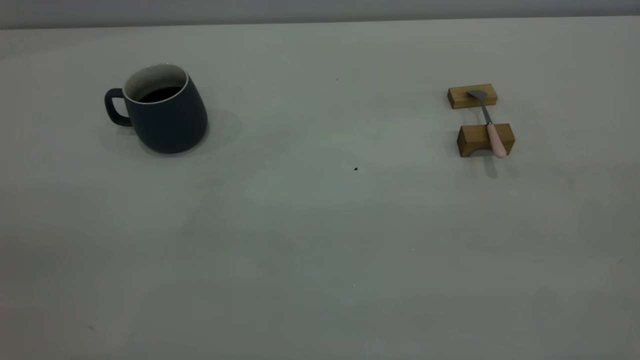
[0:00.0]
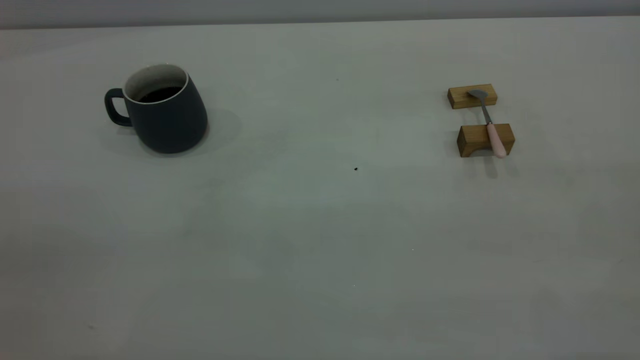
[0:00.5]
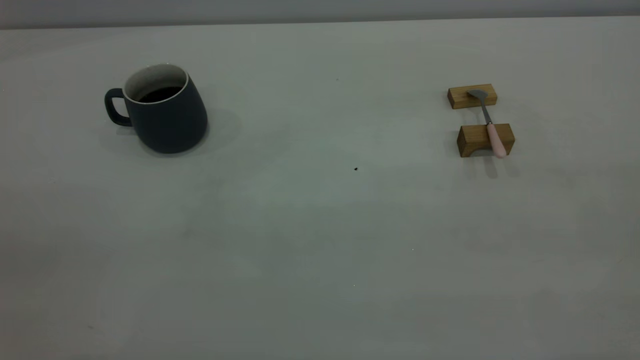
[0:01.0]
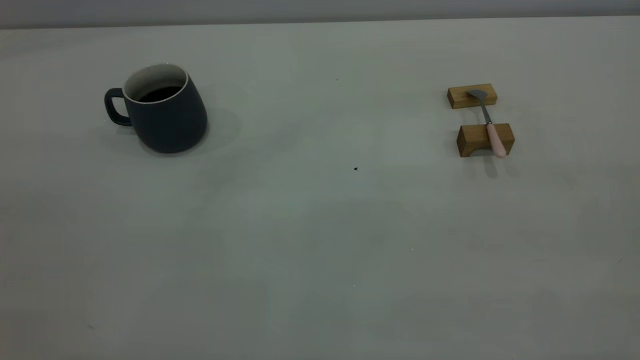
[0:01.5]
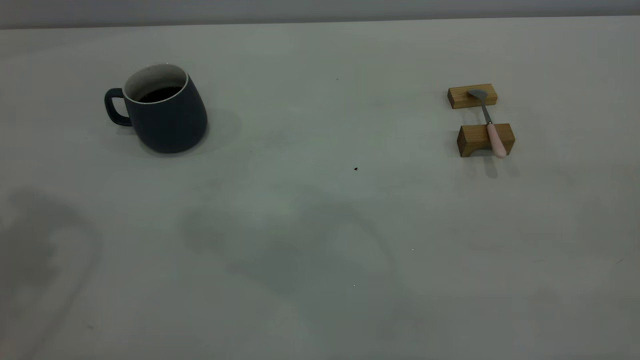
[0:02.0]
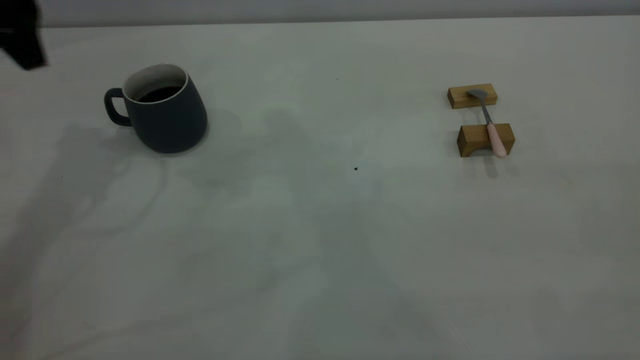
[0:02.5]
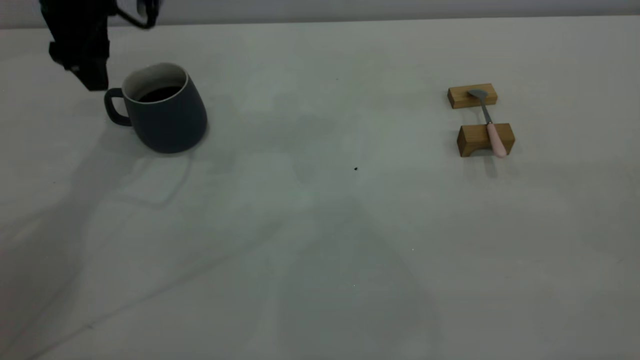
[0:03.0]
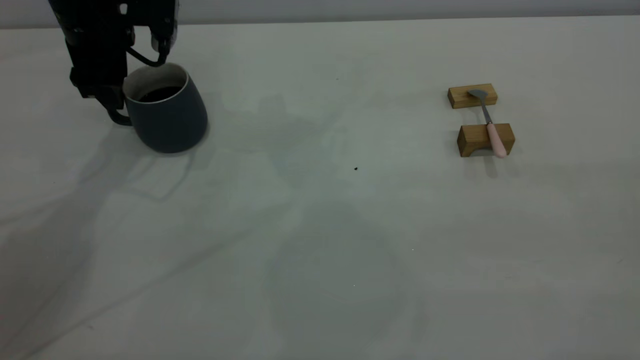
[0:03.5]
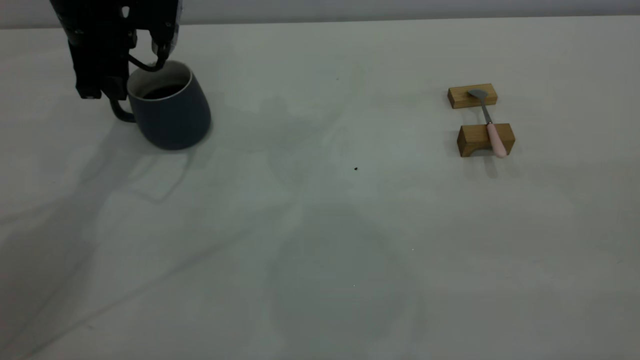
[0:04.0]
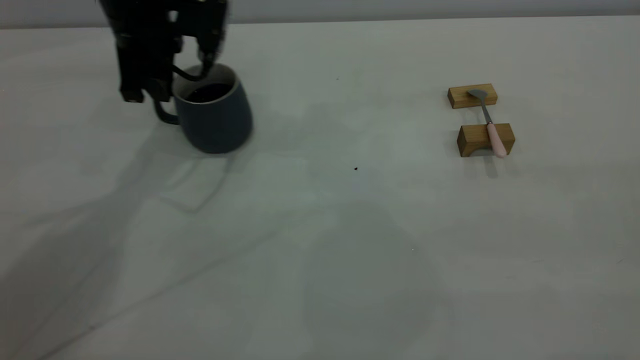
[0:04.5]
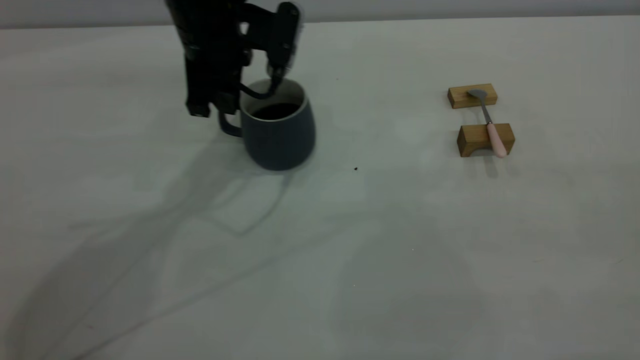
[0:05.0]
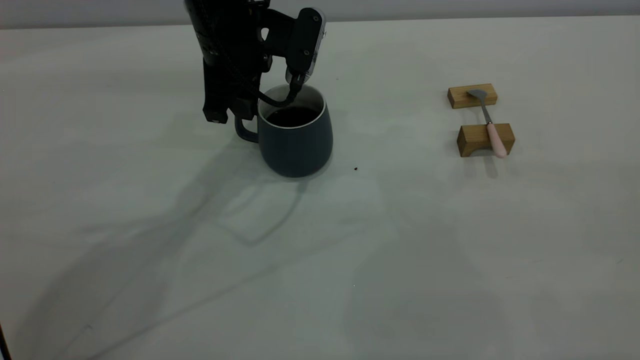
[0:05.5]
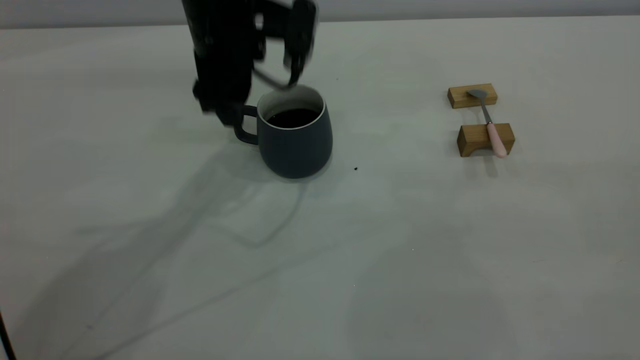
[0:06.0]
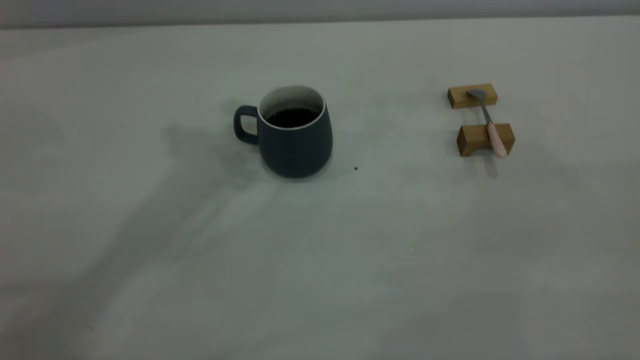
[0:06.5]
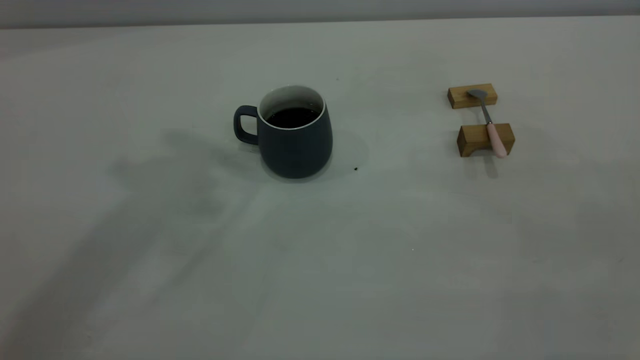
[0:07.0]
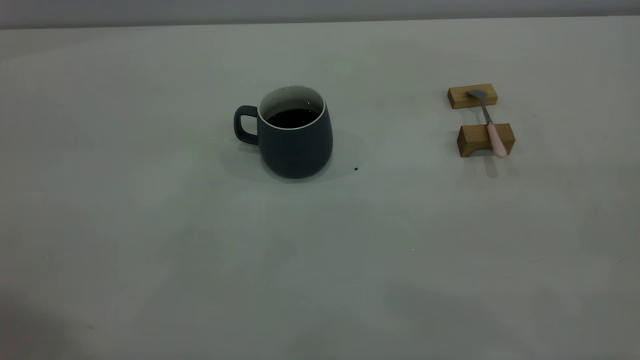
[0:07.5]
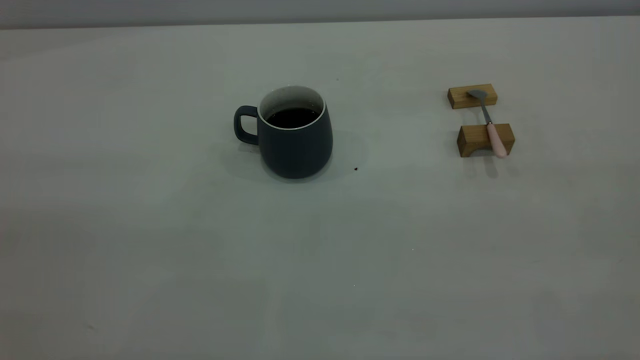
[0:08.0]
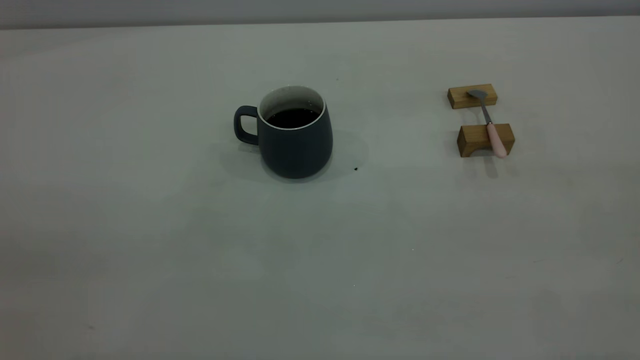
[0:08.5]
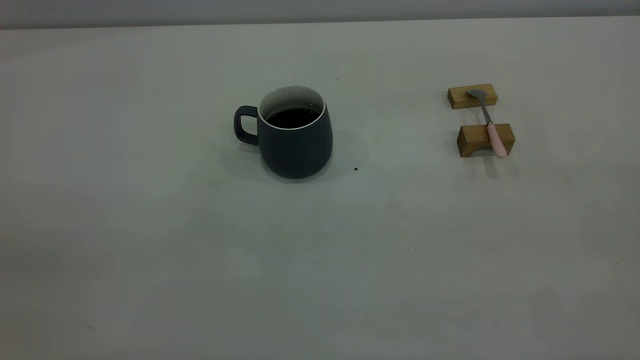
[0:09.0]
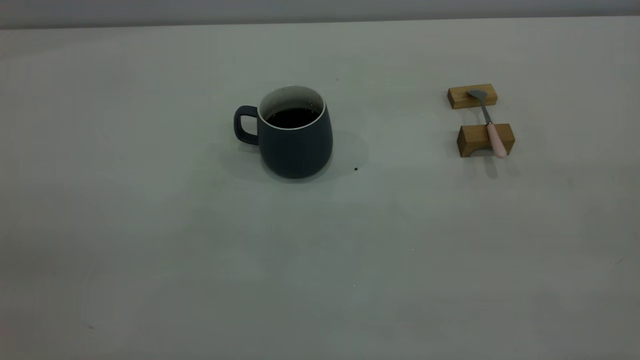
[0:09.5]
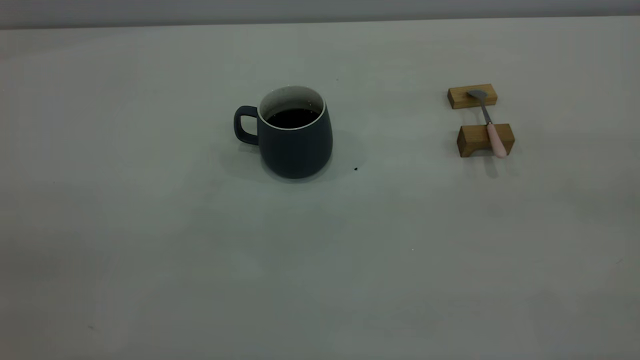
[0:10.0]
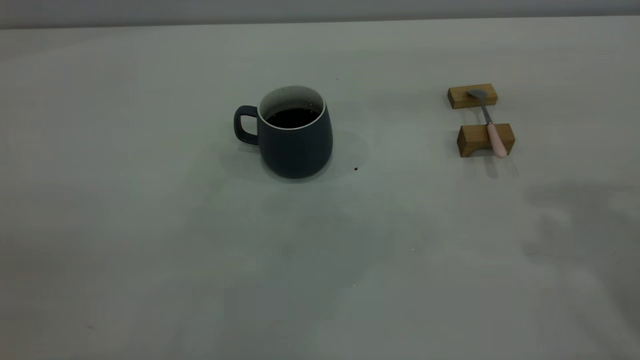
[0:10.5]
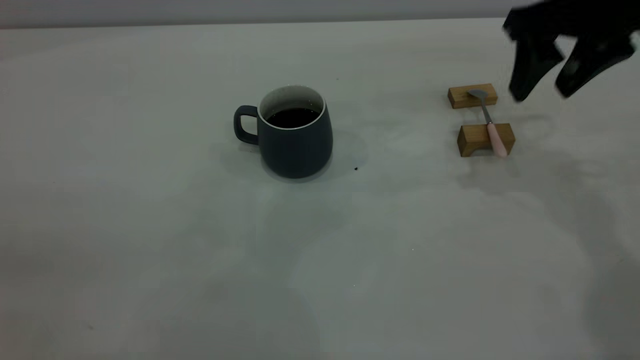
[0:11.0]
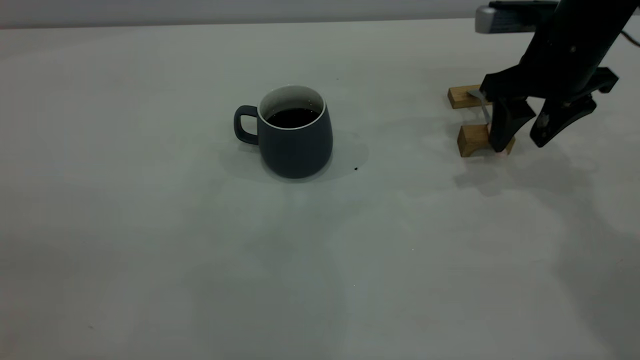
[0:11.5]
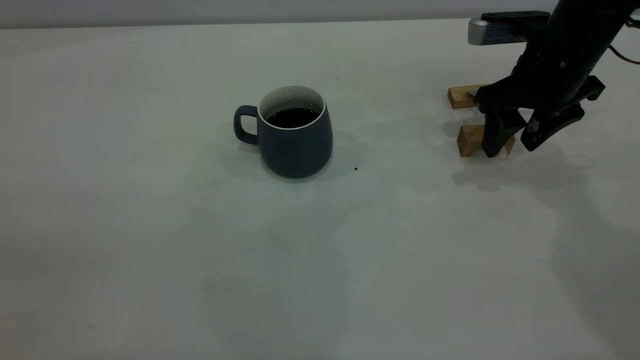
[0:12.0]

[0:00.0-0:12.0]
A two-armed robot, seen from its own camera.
Step, 0:00.0 to 0:06.0: Move the cup with coffee to the center of view.
0:02.0 to 0:04.0: The left gripper heads downward and forward, covering approximately 30 cm, and closes up.
0:04.0 to 0:06.0: The left gripper shifts about 15 cm to the right, and opens up.
0:06.0 to 0:08.0: The left gripper heads backward, to the left and upward, covering some 50 cm.
0:10.0 to 0:12.0: The right gripper goes roughly 40 cm forward and downward, and opens up.

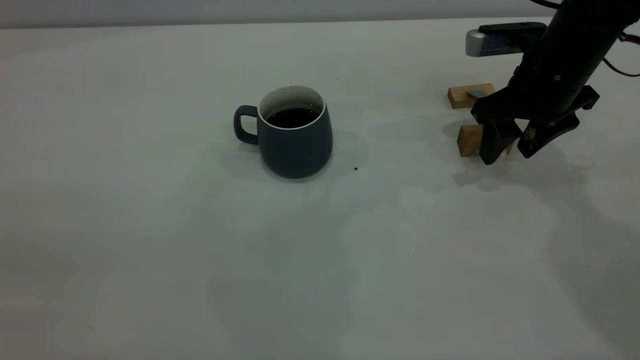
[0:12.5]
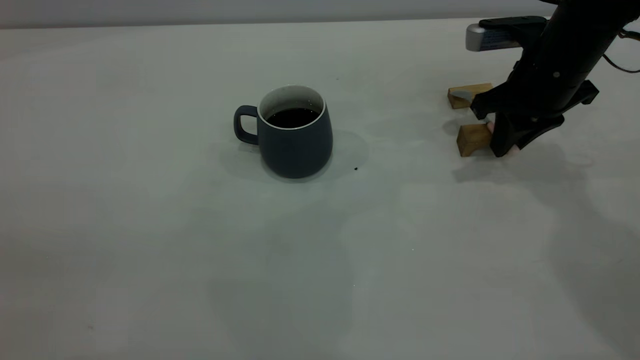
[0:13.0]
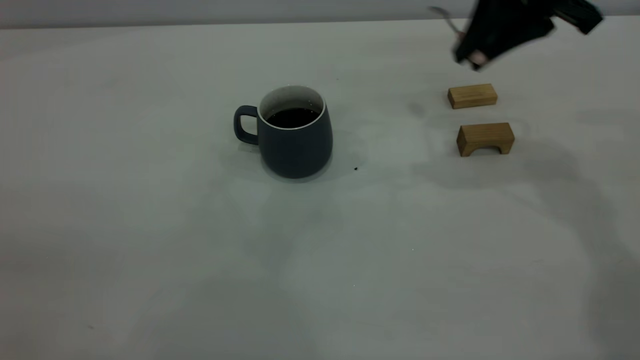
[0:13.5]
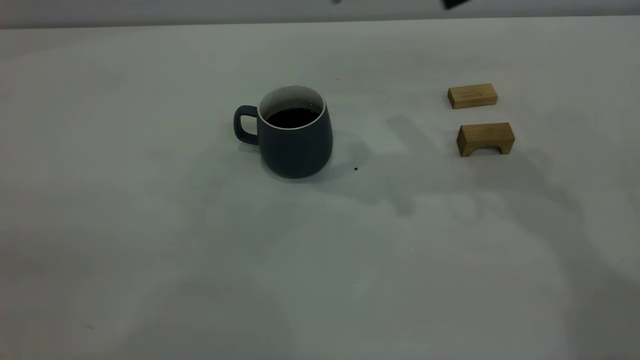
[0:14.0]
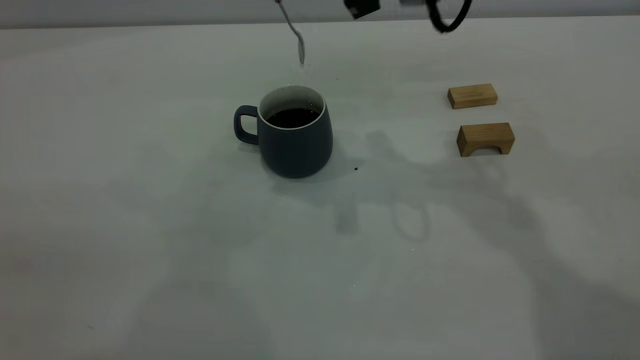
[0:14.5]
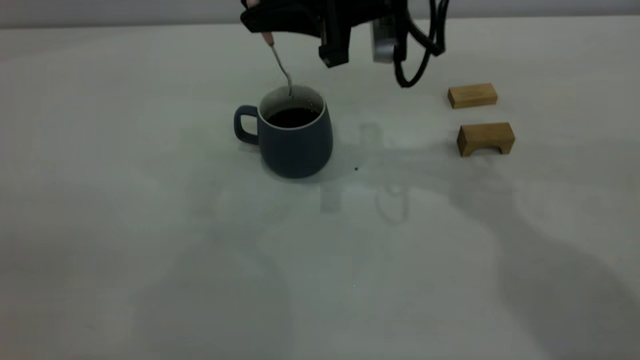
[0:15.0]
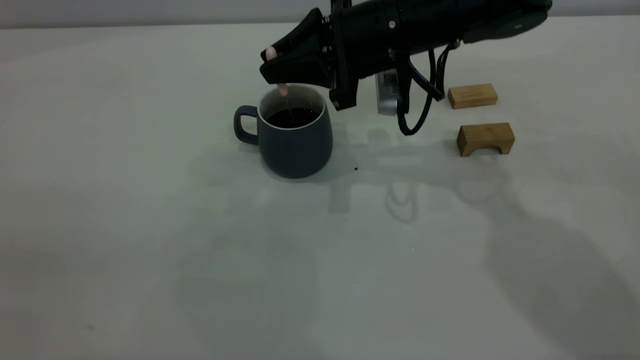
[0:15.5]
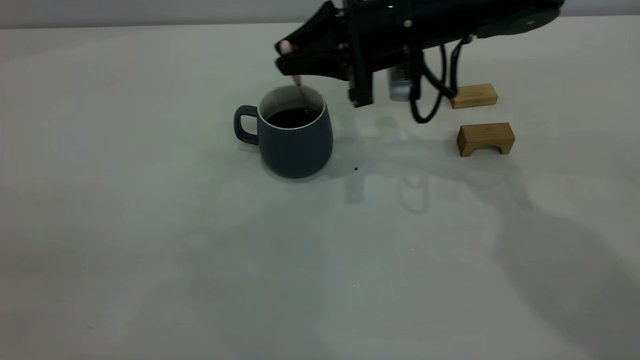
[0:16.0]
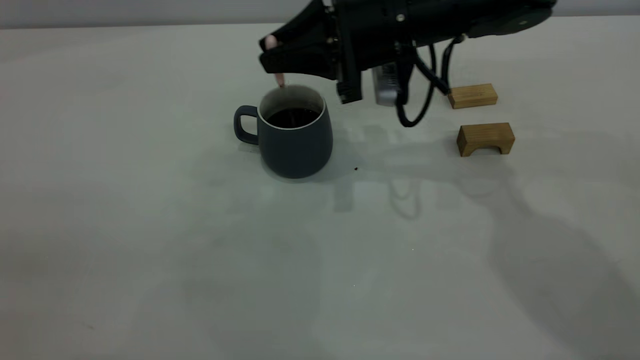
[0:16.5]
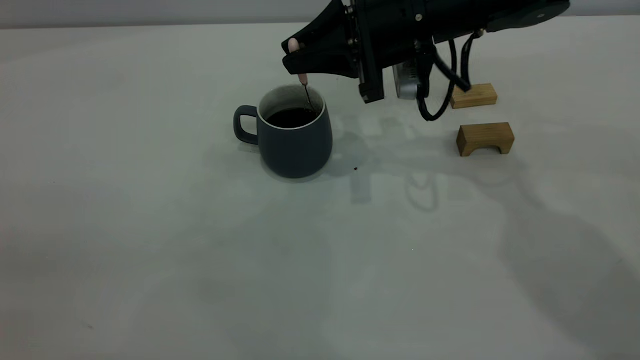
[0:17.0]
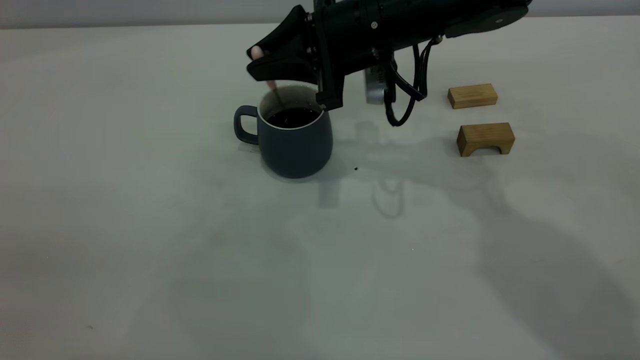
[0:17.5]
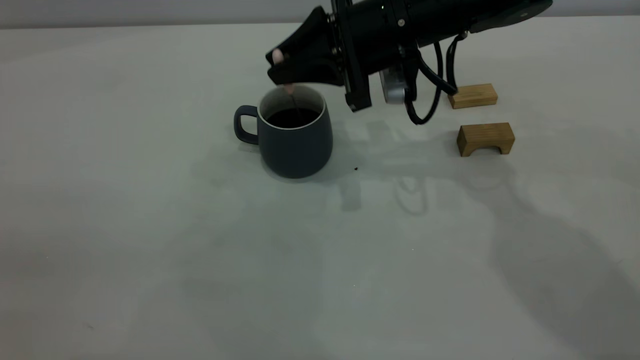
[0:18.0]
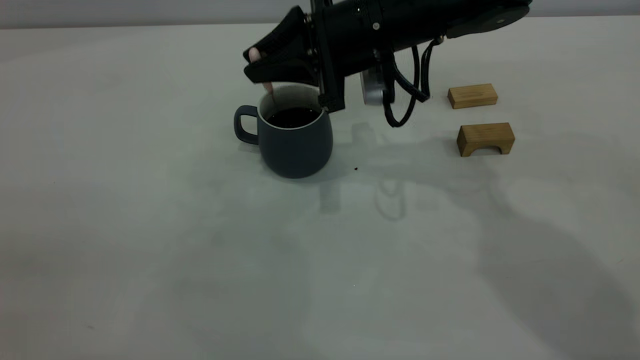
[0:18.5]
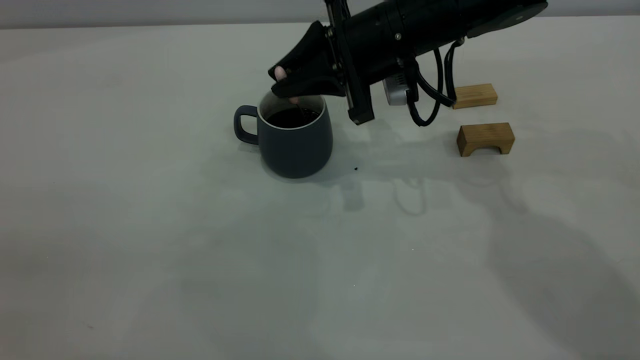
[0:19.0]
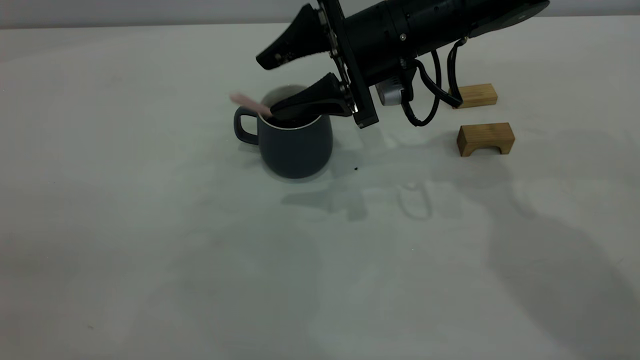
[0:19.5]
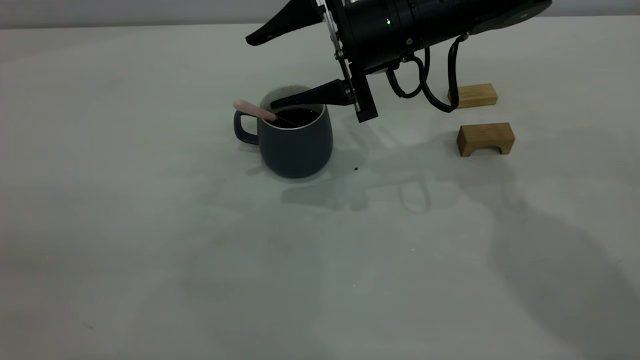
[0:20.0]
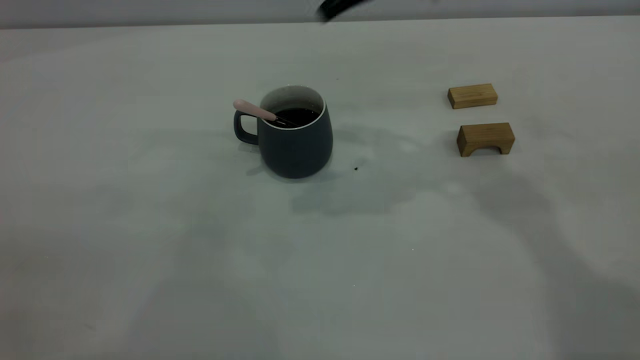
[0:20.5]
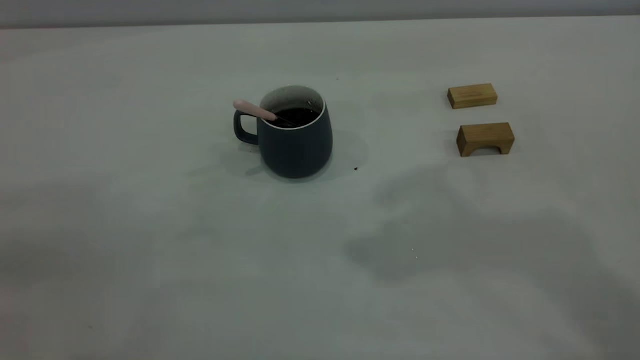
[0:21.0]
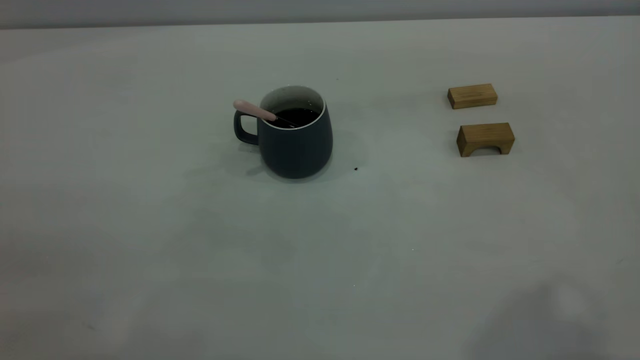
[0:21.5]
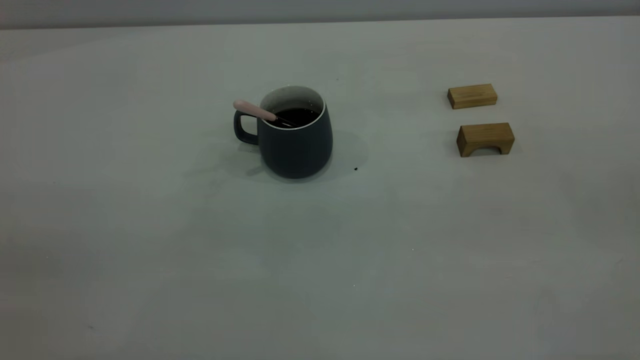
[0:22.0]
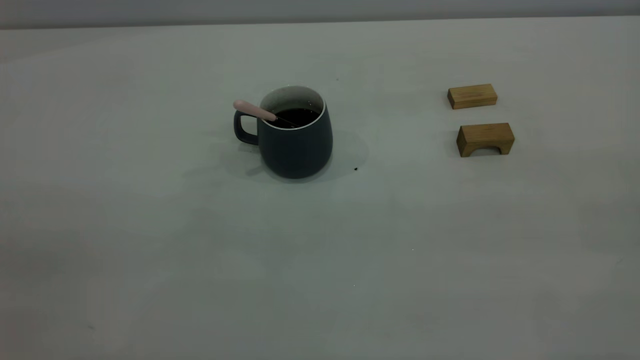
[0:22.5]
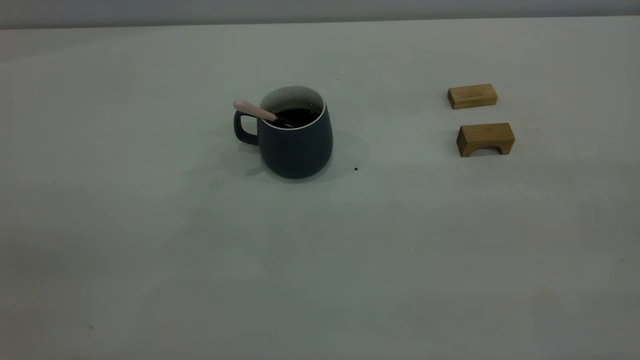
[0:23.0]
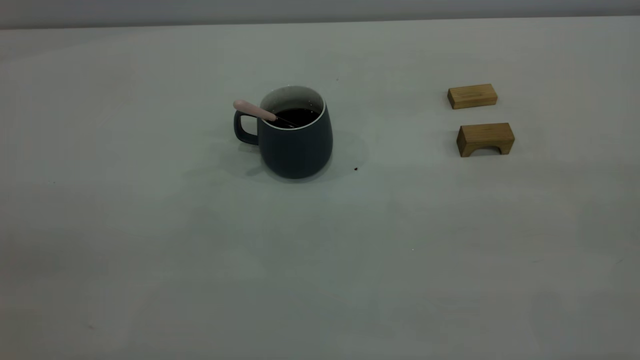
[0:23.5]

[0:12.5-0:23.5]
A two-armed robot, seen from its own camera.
Step, 0:13.5 to 0:20.0: Stir the coffee in the cup.
0:12.5 to 0:14.5: The right gripper moves to the left and upward, roughly 20 cm, and closes up.
0:14.5 to 0:16.0: The right gripper shifts some 10 cm downward.
0:16.0 to 0:18.0: The grippers stay close to where they were, moving slightly.
0:18.0 to 0:20.0: The right gripper opens its fingers.
0:20.0 to 0:21.5: The right gripper goes some 40 cm upward, backward and to the right.
